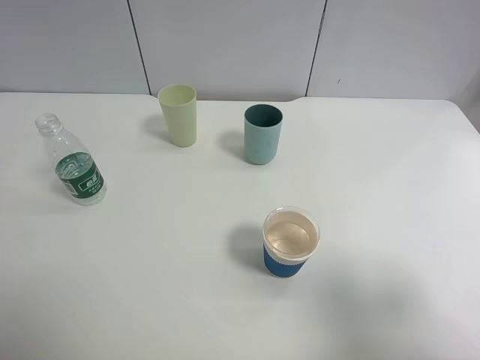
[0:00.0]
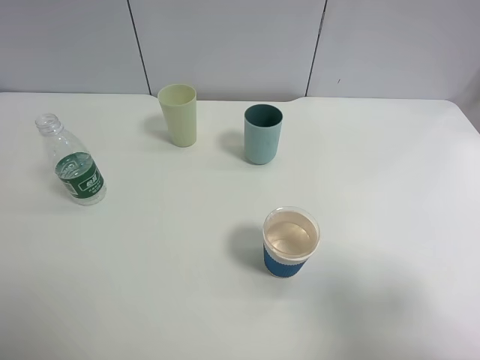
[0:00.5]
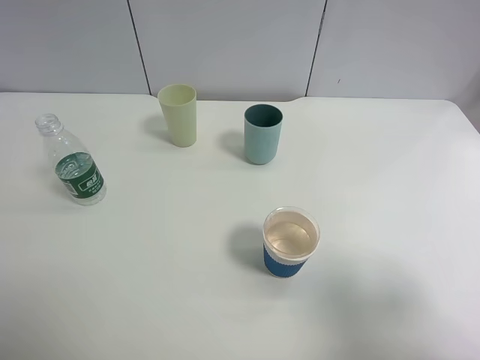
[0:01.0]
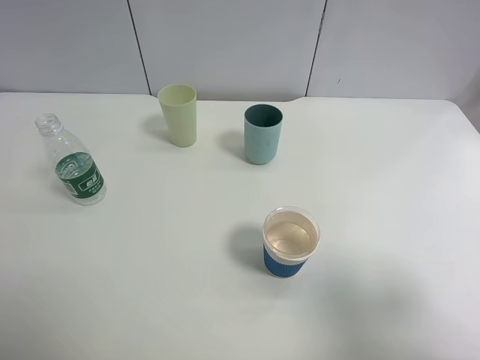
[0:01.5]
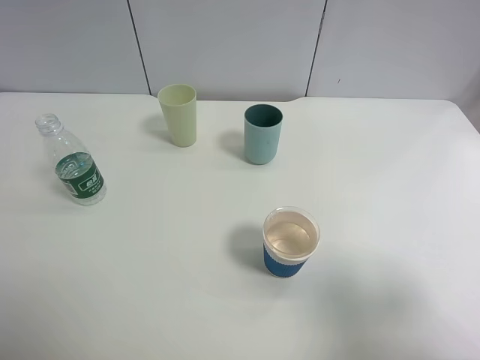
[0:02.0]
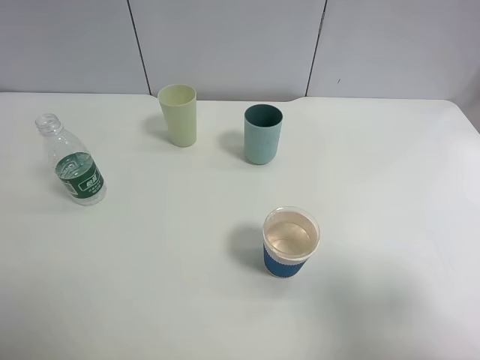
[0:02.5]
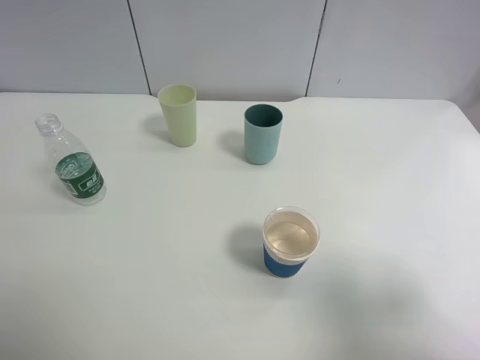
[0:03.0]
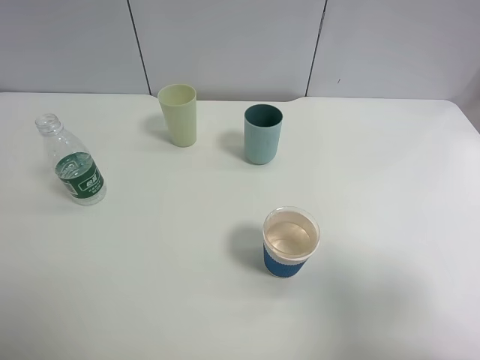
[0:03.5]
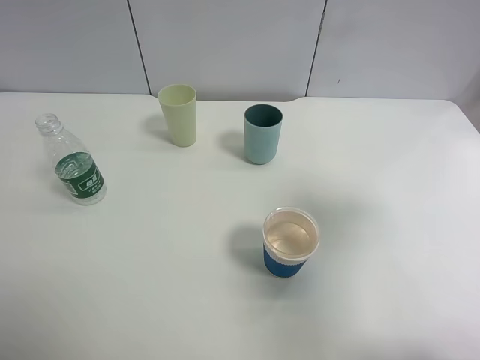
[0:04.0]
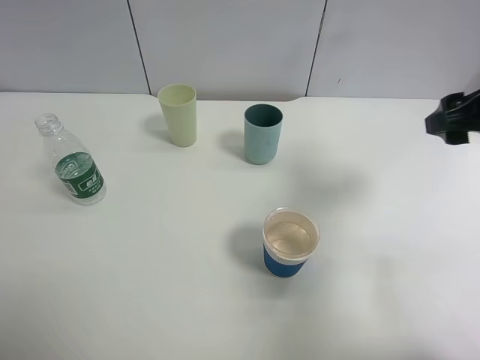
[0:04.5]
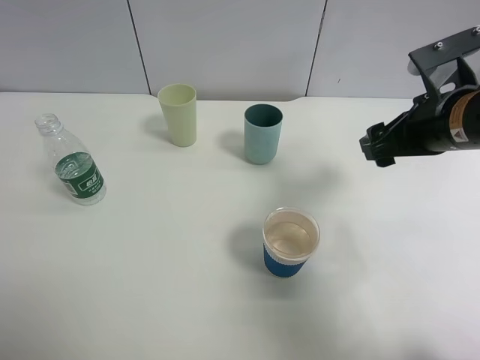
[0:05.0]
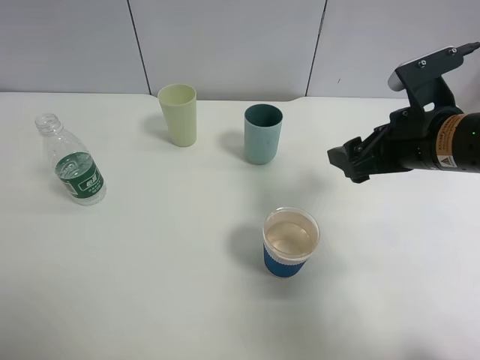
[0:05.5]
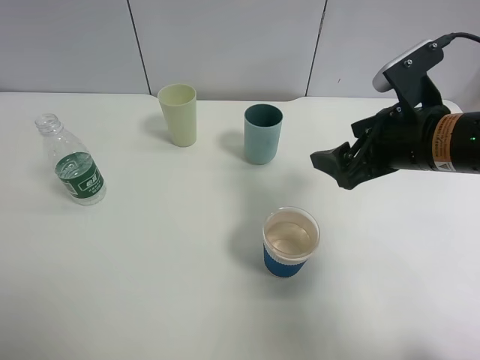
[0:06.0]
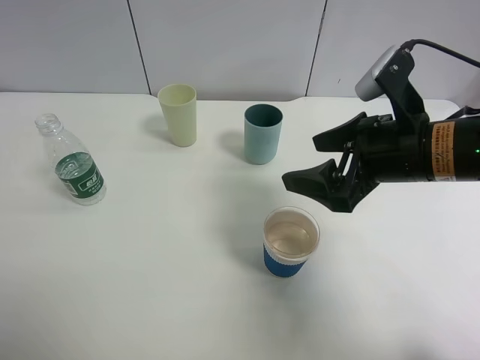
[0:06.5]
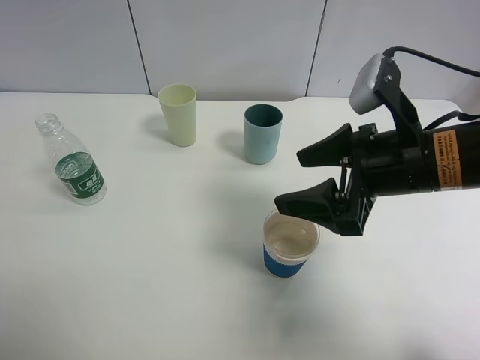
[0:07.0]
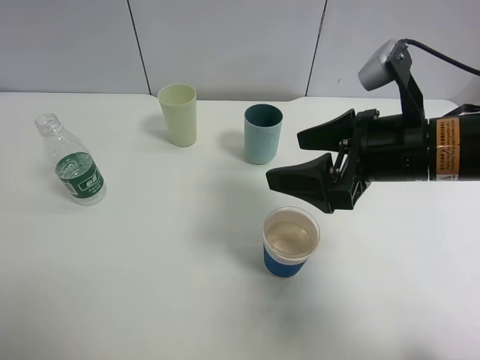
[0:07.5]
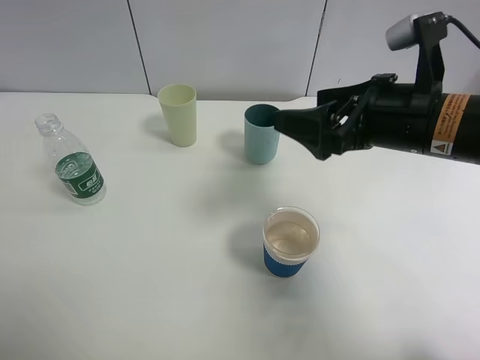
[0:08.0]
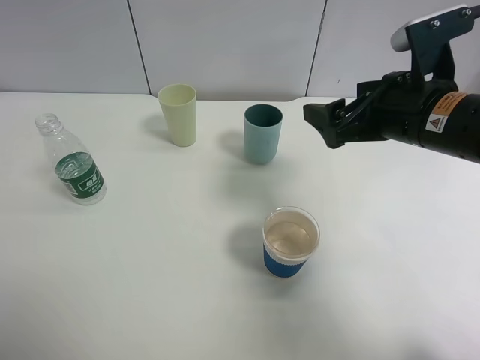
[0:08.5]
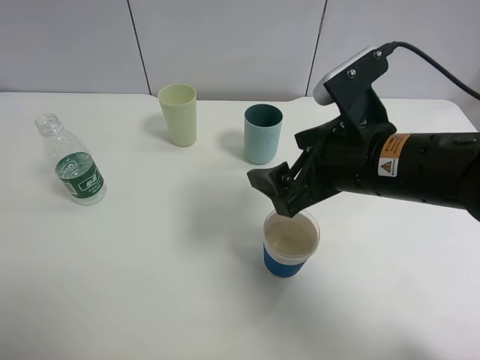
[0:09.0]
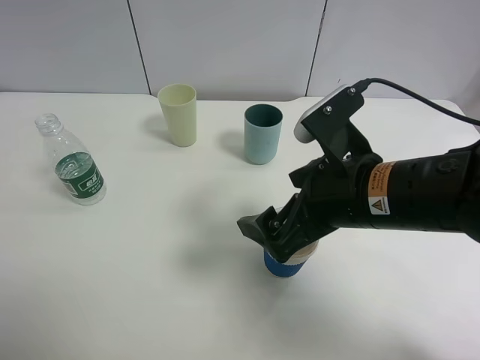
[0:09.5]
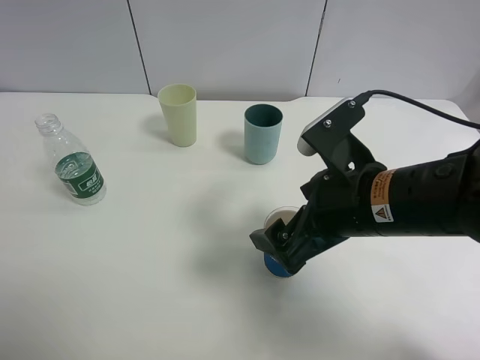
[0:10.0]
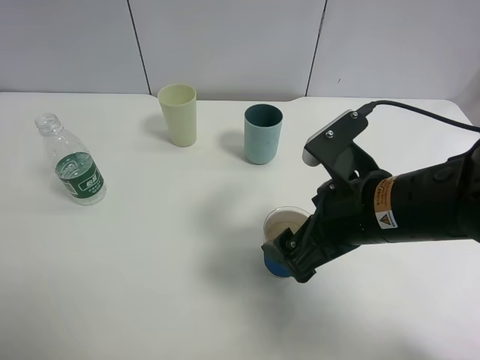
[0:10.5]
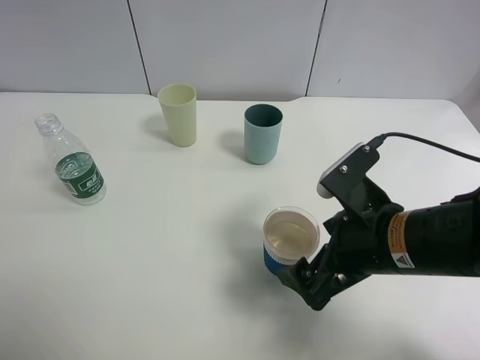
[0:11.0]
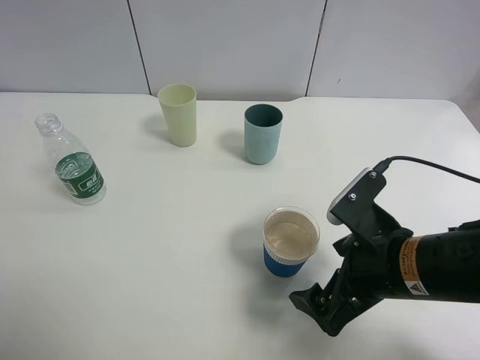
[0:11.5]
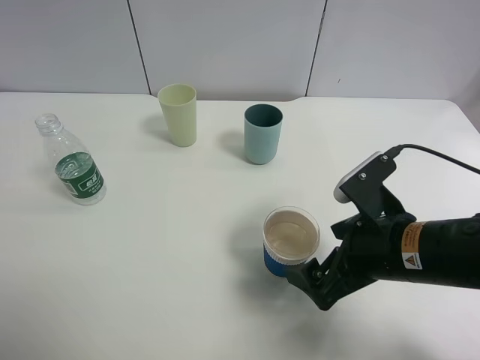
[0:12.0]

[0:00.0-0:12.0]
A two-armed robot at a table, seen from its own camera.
Task of the whole recording: use a clamp to hold the bottle of the drink, pour the beverage into a random cup, then clamp the cup containing the drink and pour the drink into another random cup.
0:02.0 to 0:04.0: The right gripper shifts approximately 15 cm forward and upward.
0:04.0 to 0:06.0: The right gripper is displaced downward, to the left and forward by some 20 cm.
0:08.0 to 0:10.0: The right gripper goes some 10 cm backward and to the left.
0:10.0 to 0:12.0: The right gripper ends up some 5 cm from where it was.

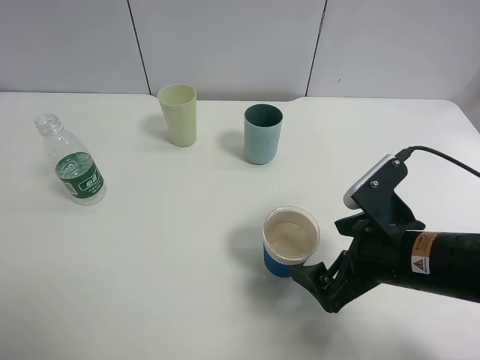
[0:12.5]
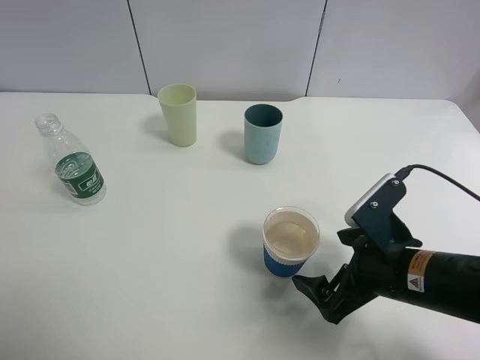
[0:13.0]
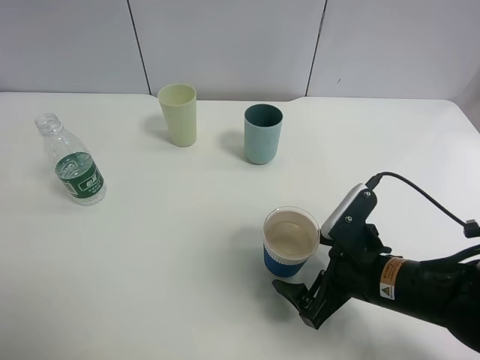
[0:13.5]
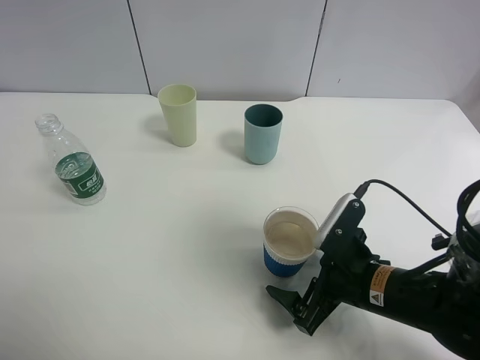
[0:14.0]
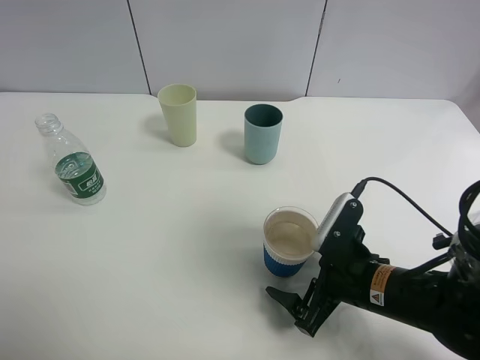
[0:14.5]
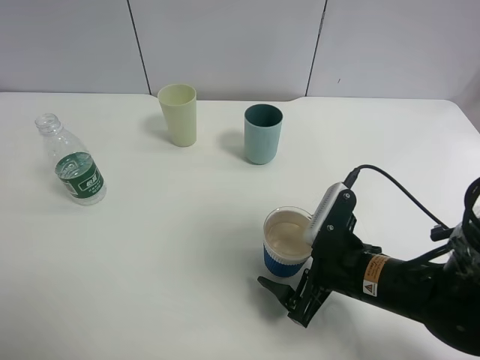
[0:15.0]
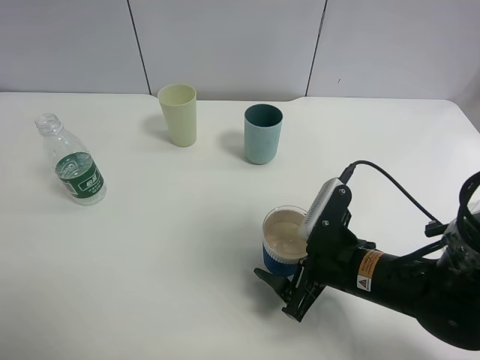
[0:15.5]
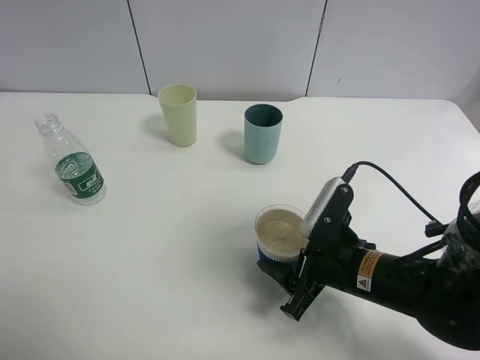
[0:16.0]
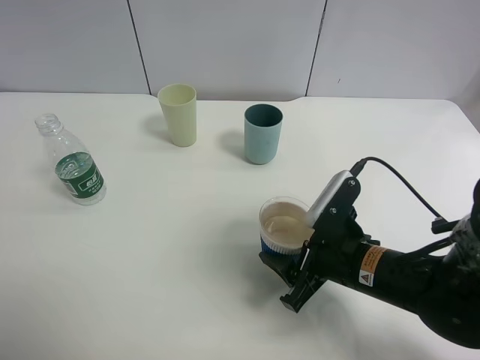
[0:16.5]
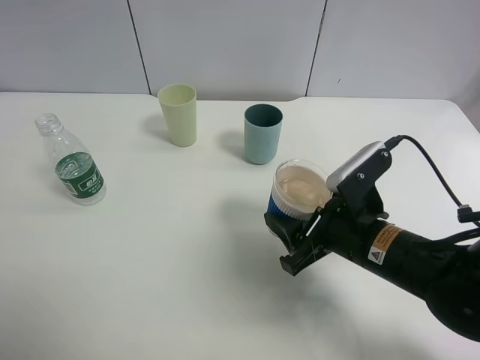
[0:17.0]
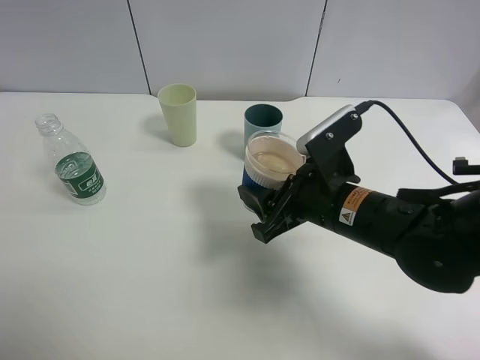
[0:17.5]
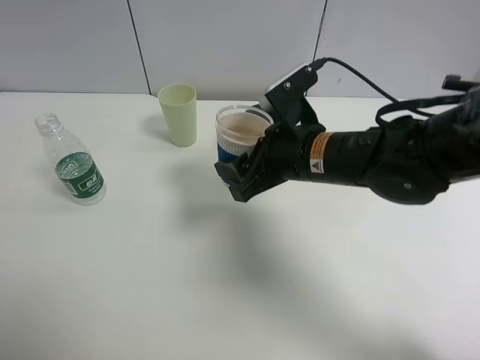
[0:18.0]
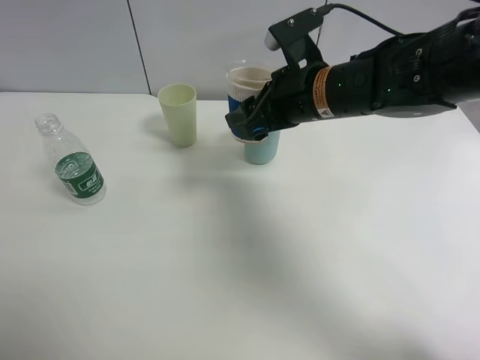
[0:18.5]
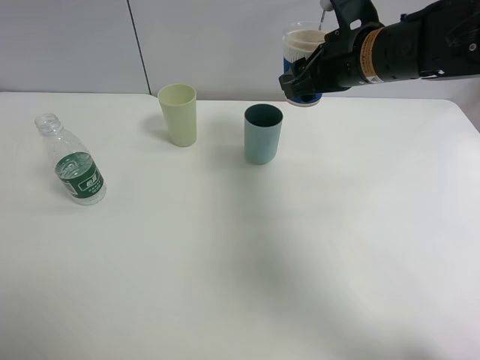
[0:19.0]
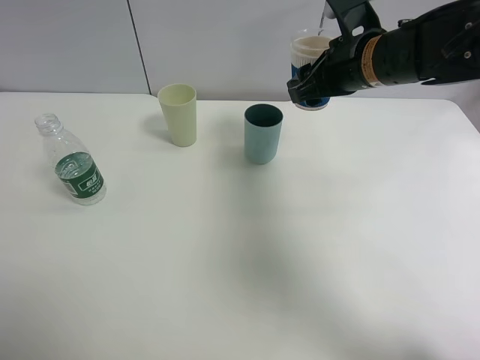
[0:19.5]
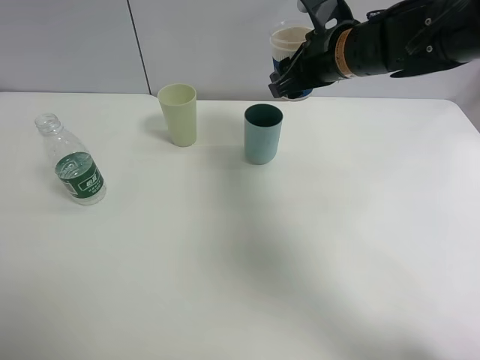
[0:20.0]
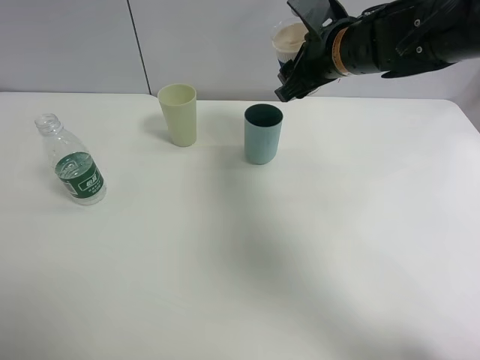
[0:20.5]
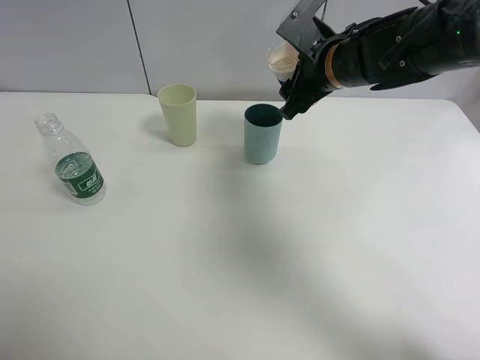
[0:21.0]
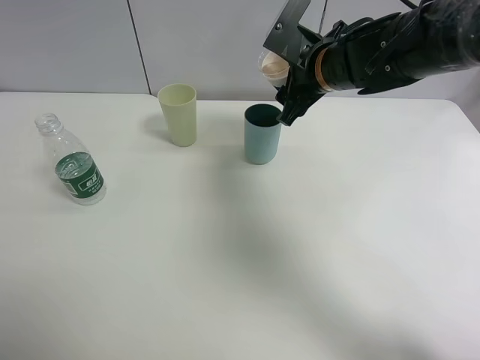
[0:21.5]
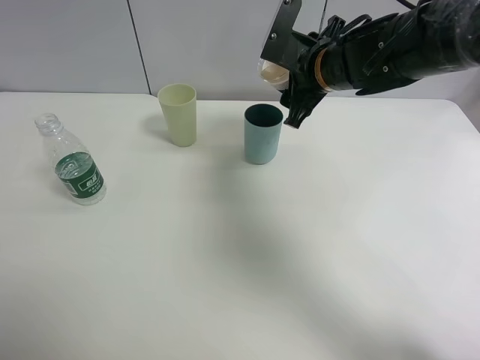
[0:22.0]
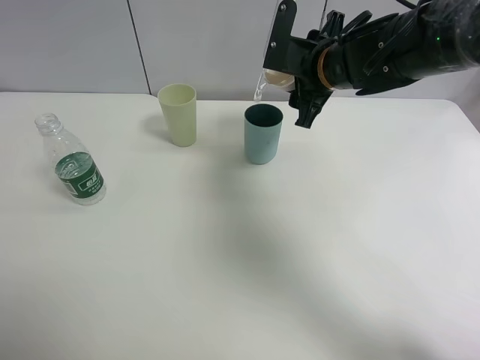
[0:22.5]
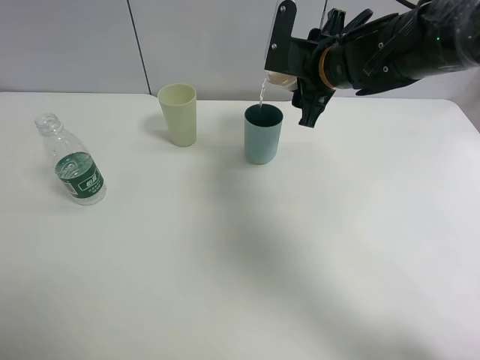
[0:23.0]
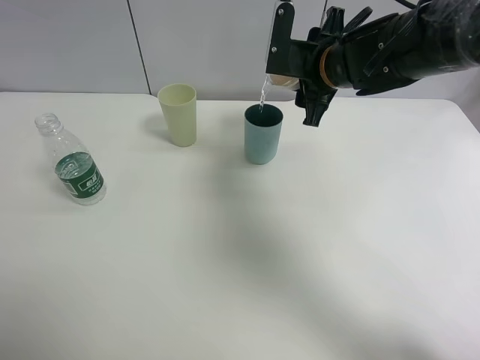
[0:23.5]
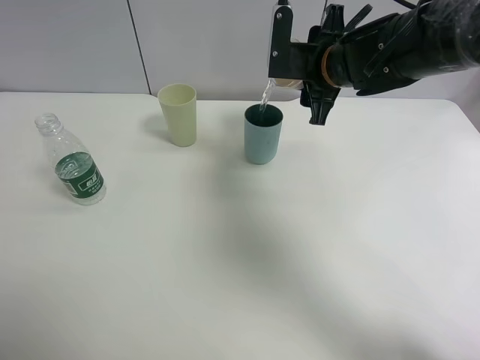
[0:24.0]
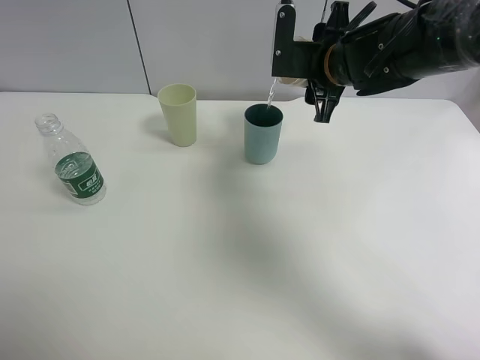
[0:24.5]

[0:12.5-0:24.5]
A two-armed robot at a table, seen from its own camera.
Task of the whole recording: use a clamp to hold the bottle of the drink, pour the beverage into a random cup, then clamp the cup containing the drink and pour the drink into another random cup.
Step, 0:12.5 to 0:16.5: Pick up the paper cup with right gripper.
0:12.5 to 0:14.5: The right gripper goes some 10 cm downward.
0:14.5 to 0:16.5: The right gripper closes.
0:16.5 to 0:18.5: The right gripper moves forward and upward, some 20 cm.
0:18.5 to 0:20.5: The right gripper travels forward by roughly 5 cm.
0:22.5 to 0:24.5: The grippers make only small movements.

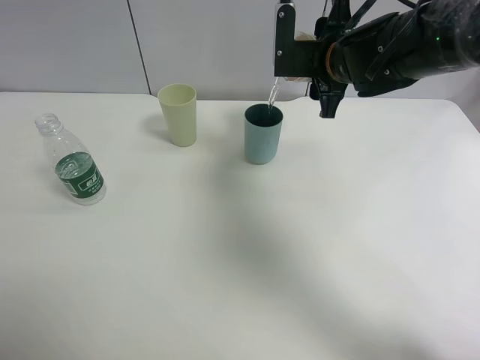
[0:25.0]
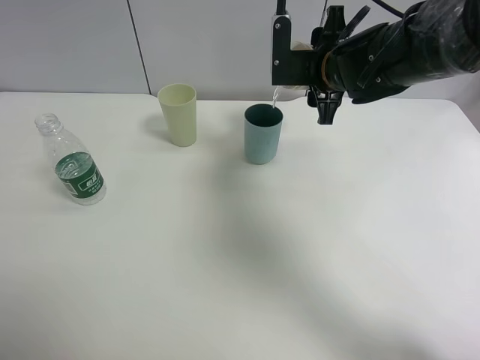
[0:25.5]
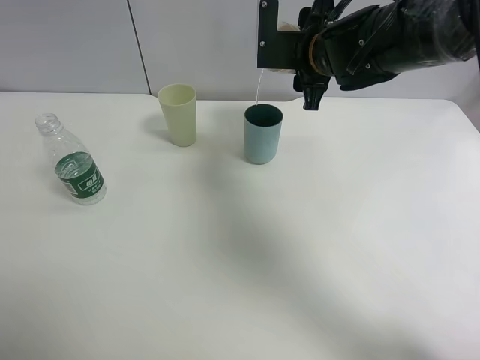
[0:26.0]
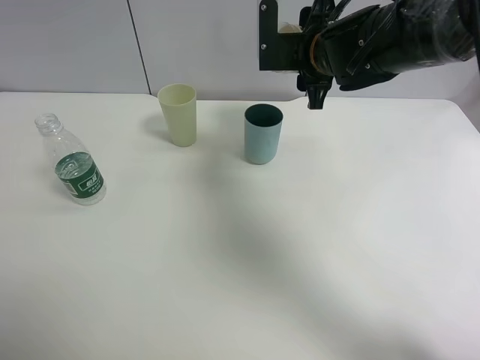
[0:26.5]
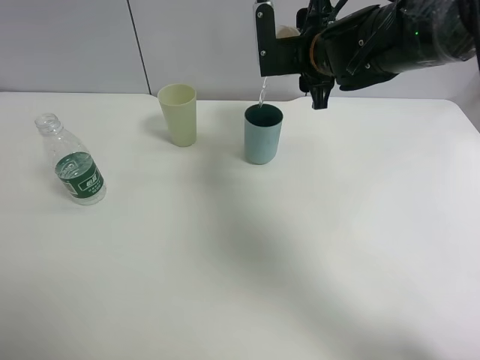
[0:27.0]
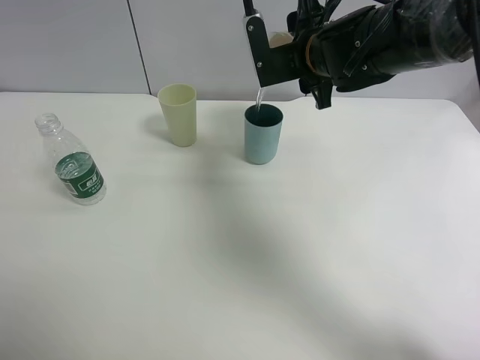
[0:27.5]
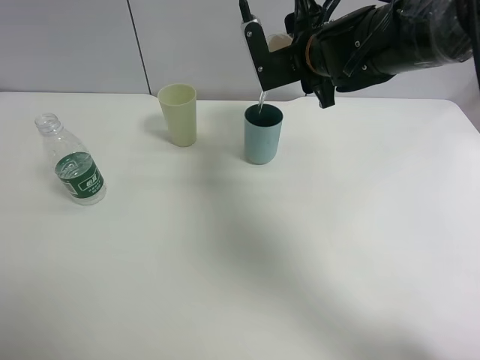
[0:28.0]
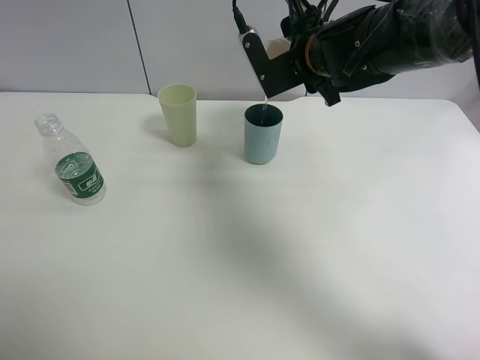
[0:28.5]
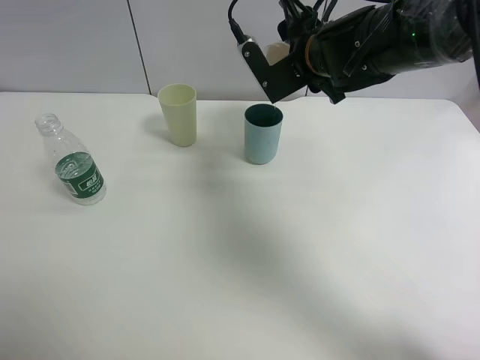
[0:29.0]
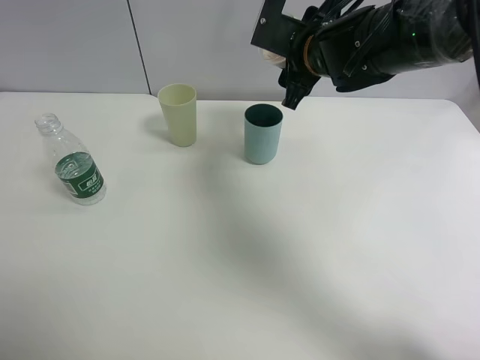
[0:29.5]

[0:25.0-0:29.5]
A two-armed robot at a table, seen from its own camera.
Task of the whole recording: use a clamp to hold the bottle of the drink, pour the beverage into a random cup, then clamp the cup containing the drink and pour the drink into another random cup.
0:25.0 to 0:27.0: The grippers make only small movements.
